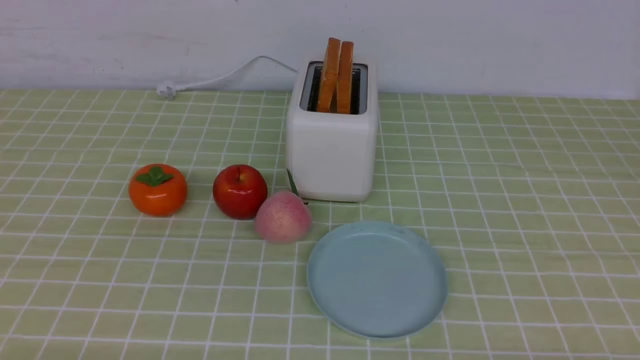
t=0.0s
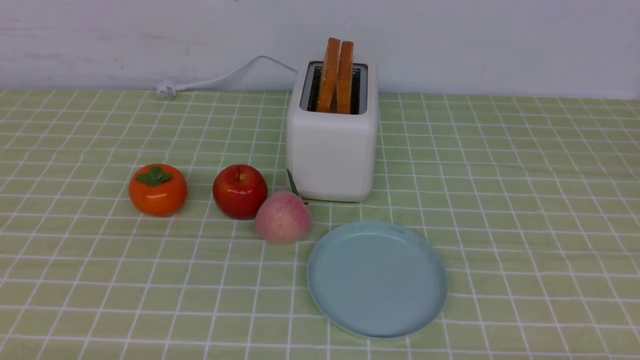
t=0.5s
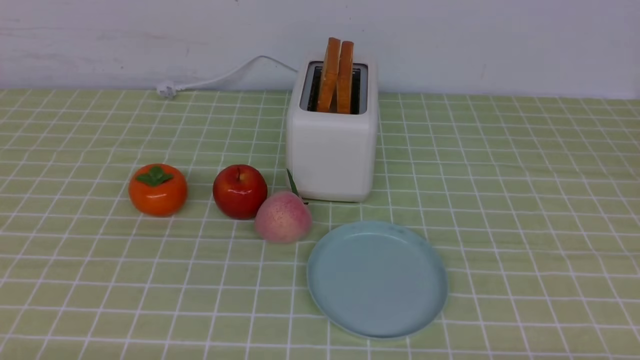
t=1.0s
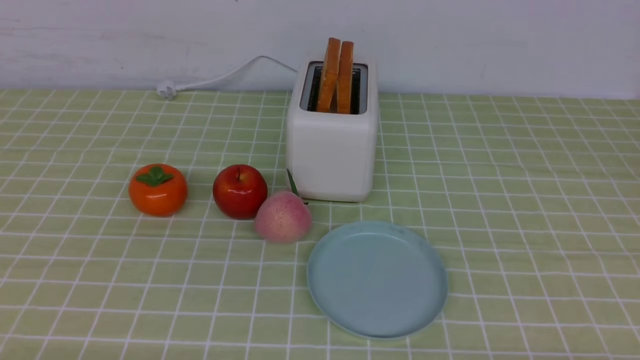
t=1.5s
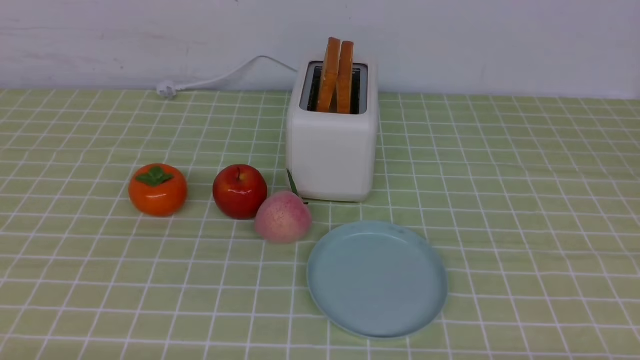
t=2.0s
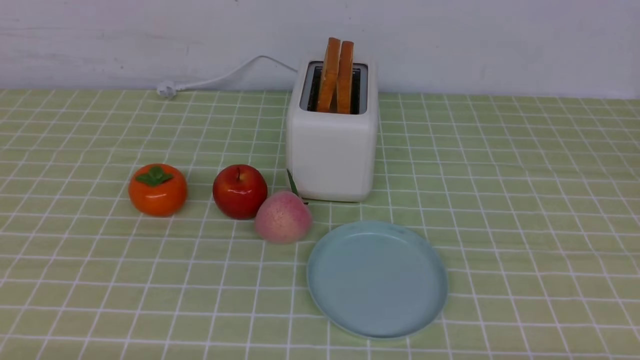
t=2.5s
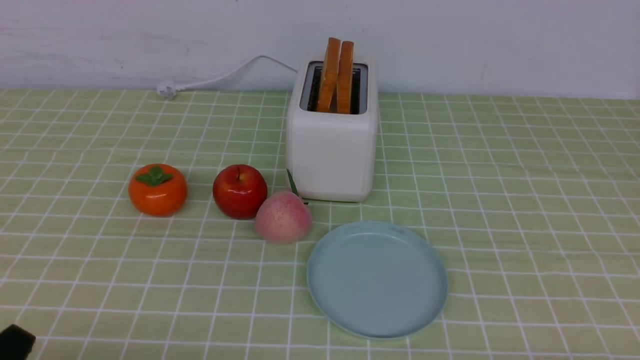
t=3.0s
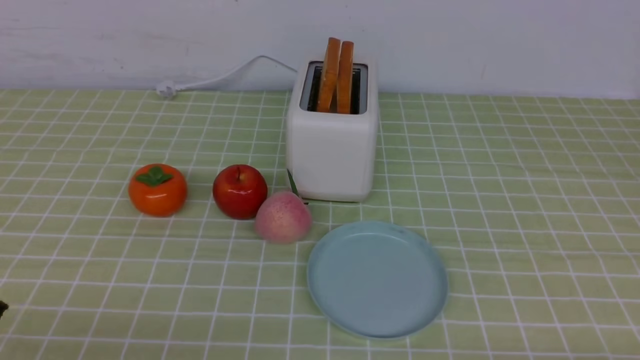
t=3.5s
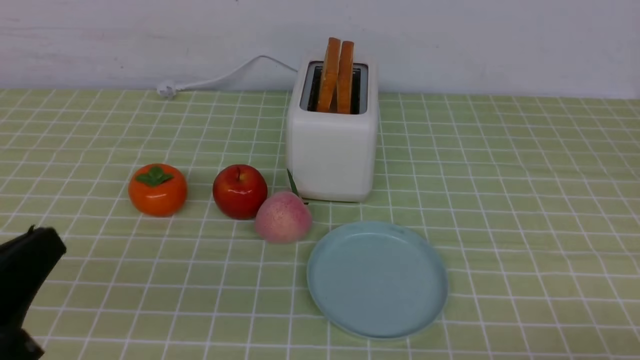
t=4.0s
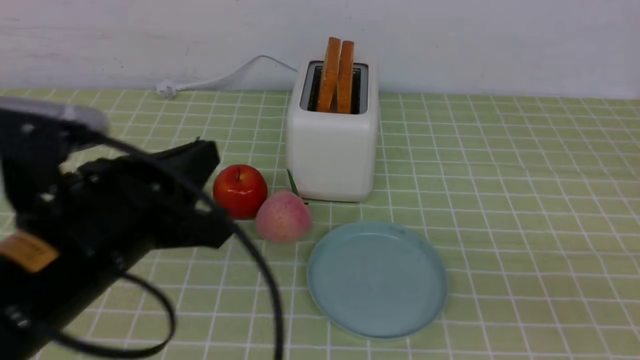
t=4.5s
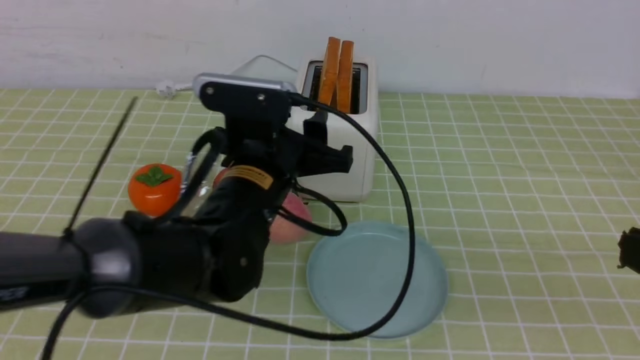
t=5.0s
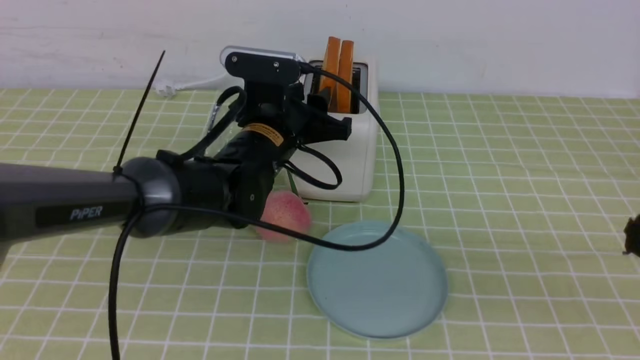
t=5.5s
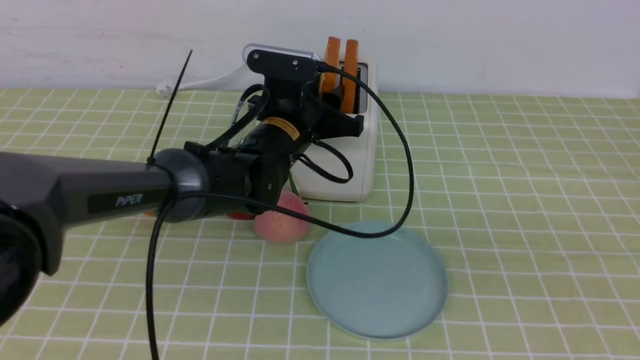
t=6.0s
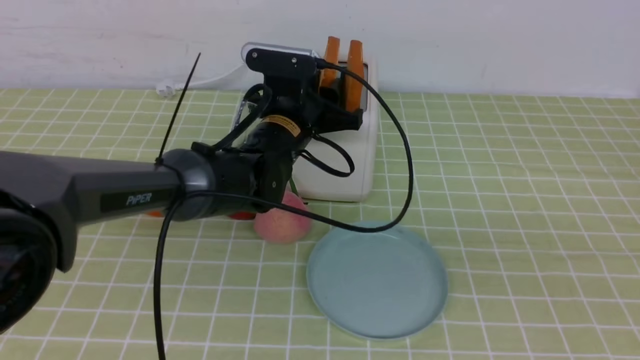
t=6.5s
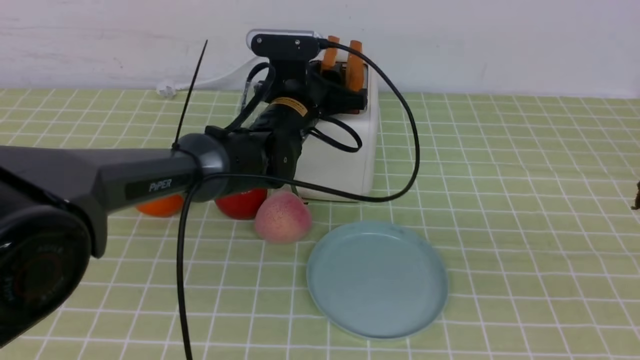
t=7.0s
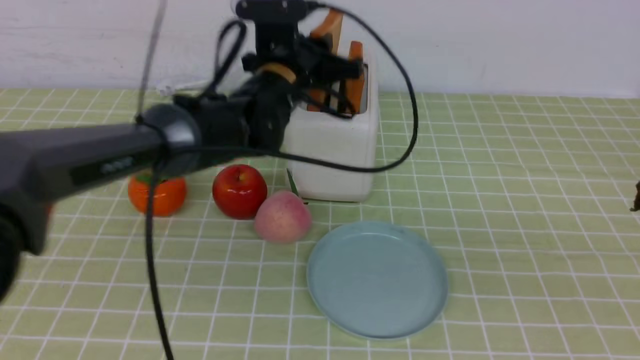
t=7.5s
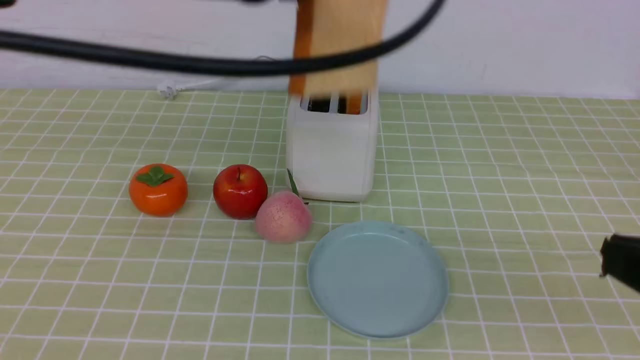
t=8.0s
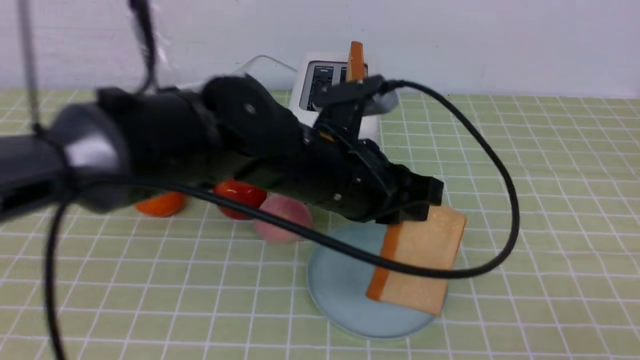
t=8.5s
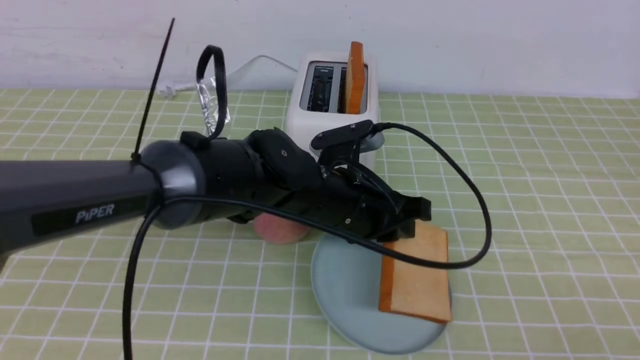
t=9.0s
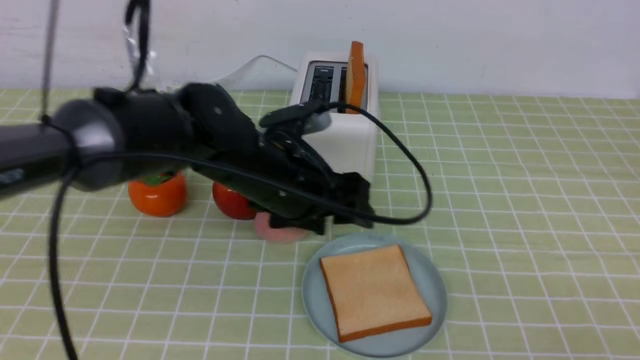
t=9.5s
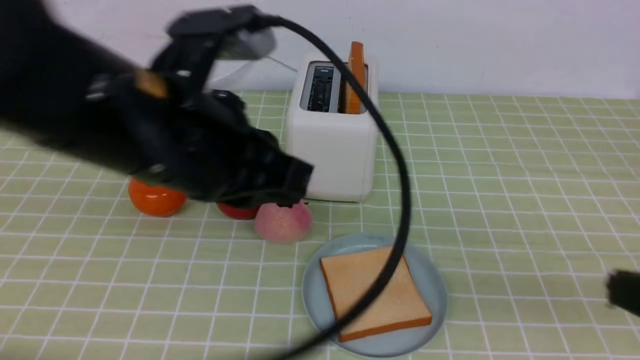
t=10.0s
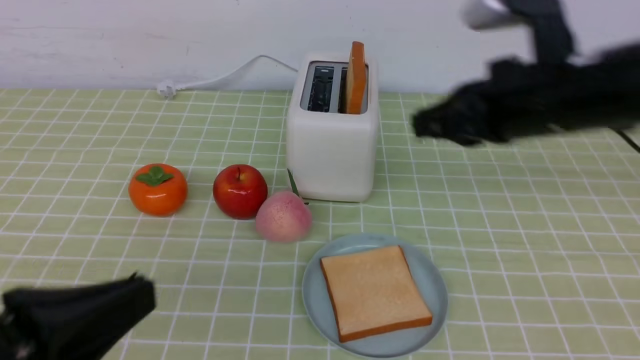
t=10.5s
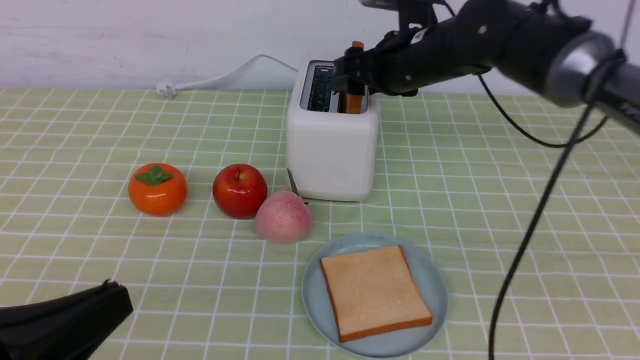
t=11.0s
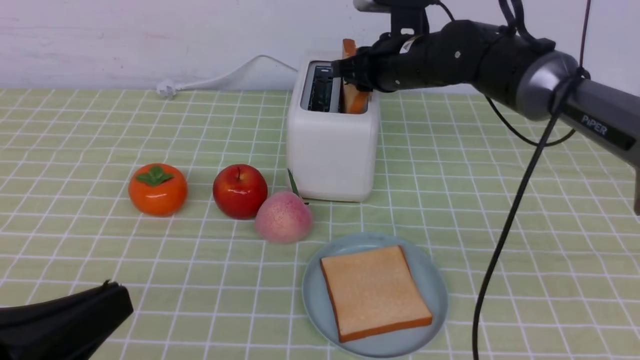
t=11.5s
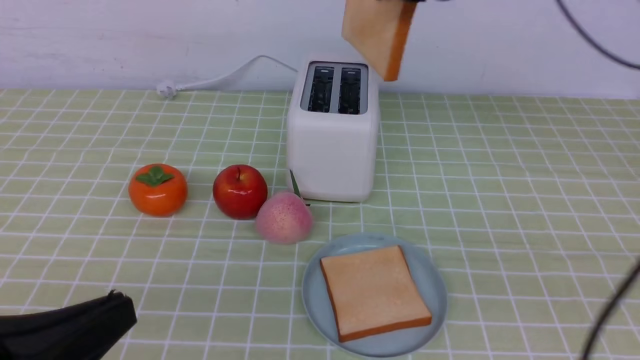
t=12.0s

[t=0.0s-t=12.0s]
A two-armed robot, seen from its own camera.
Task of the whole recording: take toasted bread from bread machine on green coffee tablecloth place on plate.
Step, t=0.0s to t=7.5s: use the left arm to take out a slice of bread.
Step, t=8.0s to t=10.0s: use the left arm to put a slice of bread into the empty plate.
t=2.0s to t=4.0s: The left gripper shifts about 10 cm upward, and closes.
t=4.0s to t=6.0s: The left gripper heads forward and to the right, covering about 40 cm, and opens, while the right gripper heads upward, covering some 15 cm.
t=6.0s to t=8.0s: The left gripper heads upward and backward, covering some 20 cm, and closes up.
t=8.0s to t=10.0s: The left gripper heads backward and downward, covering some 10 cm, and opens, then closes once more.
t=10.0s to t=12.0s: The right gripper heads forward and to the left, covering some 35 cm, and opens, then closes once more, while the left gripper shifts approximately 20 cm backward, to the left and downward.

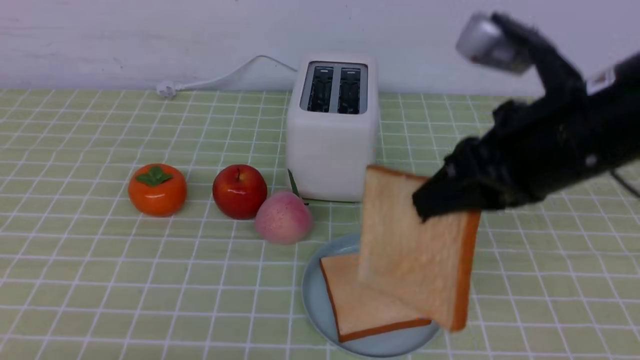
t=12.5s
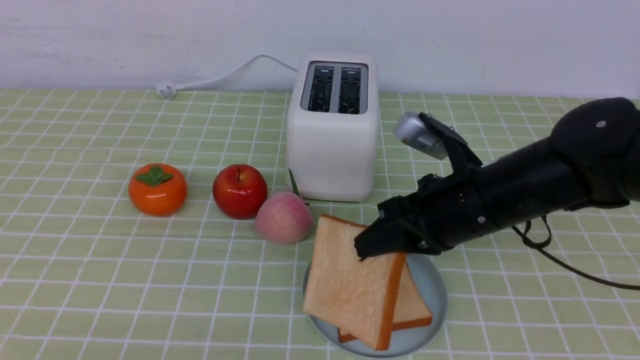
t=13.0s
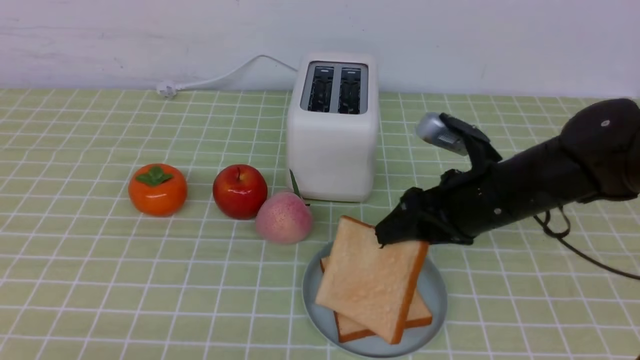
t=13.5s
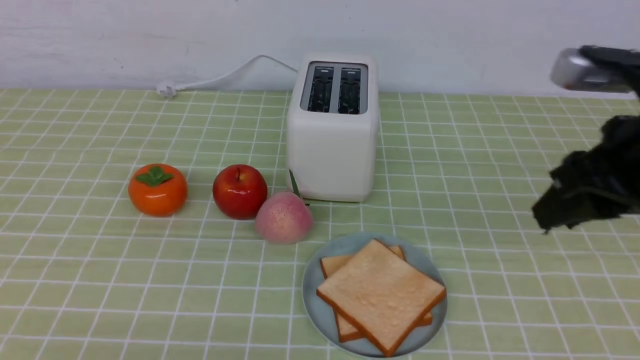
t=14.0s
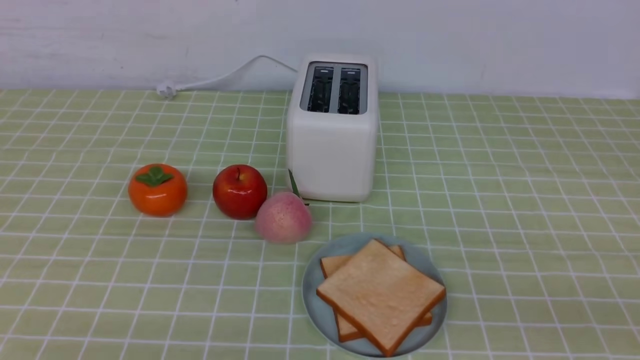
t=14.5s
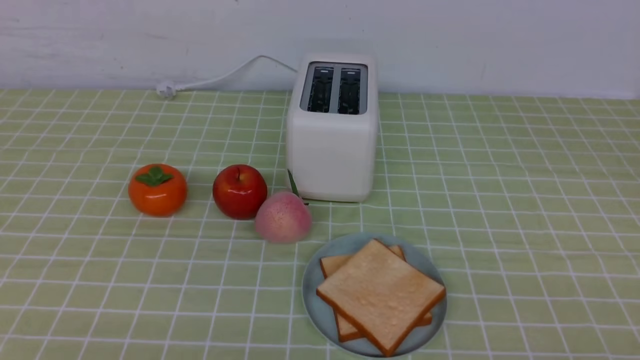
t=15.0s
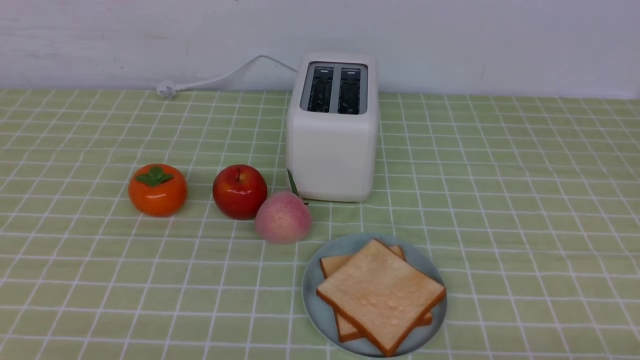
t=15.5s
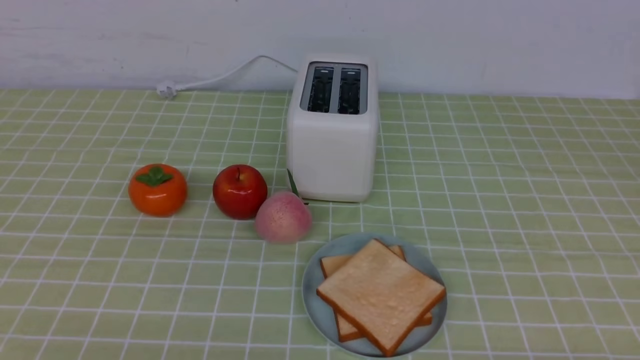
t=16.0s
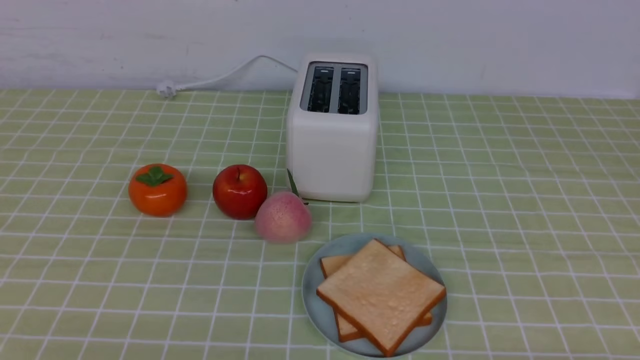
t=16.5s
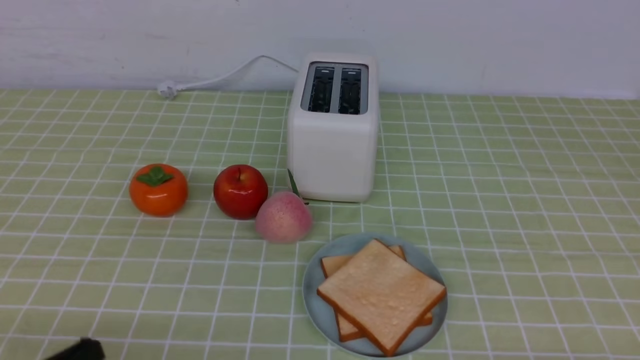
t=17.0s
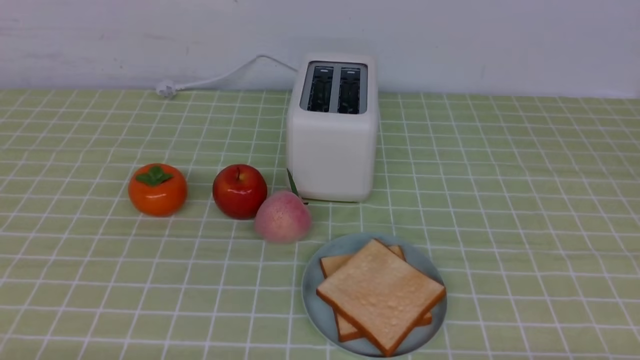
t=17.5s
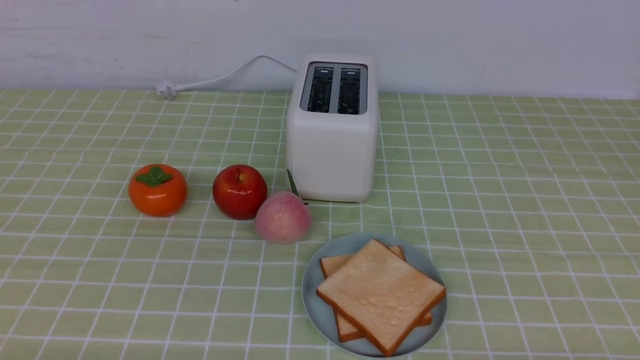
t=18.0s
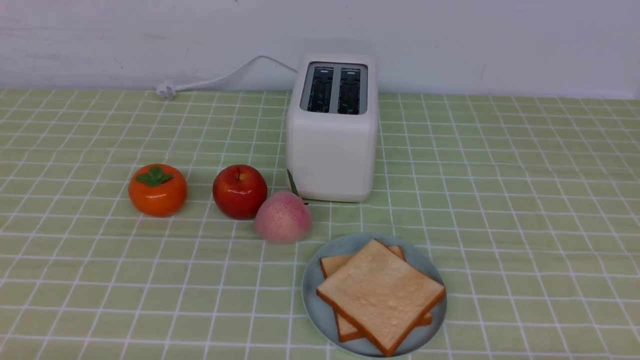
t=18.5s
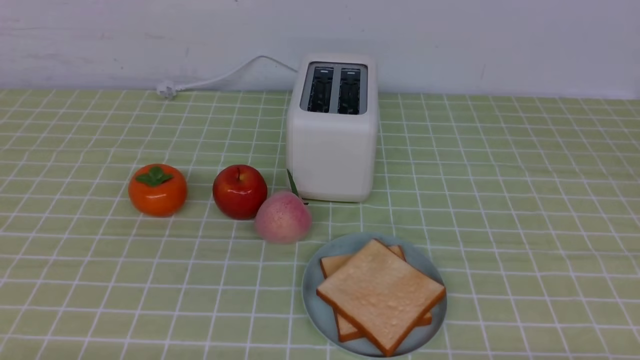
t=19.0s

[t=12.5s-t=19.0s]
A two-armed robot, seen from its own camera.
Task of the whole recording: take toasted bread from bread machine on green coffee tablecloth place on plate.
Step, t=12.5s to t=13.5s: use the right arm to put a slice of bread into the plate.
t=12.5s to t=14.5s: The right gripper moves backward and to the right, some 20 cm, and opens, then closes once more; the left gripper is displaced downward by some 5 cm.

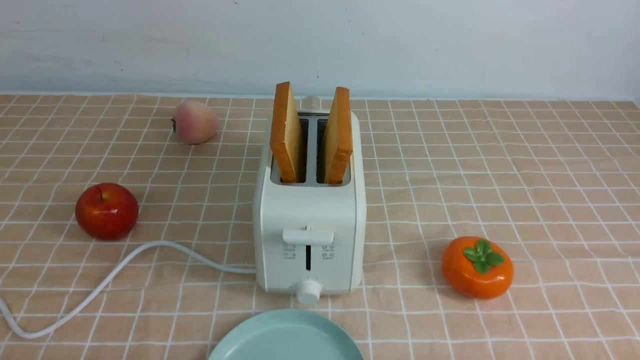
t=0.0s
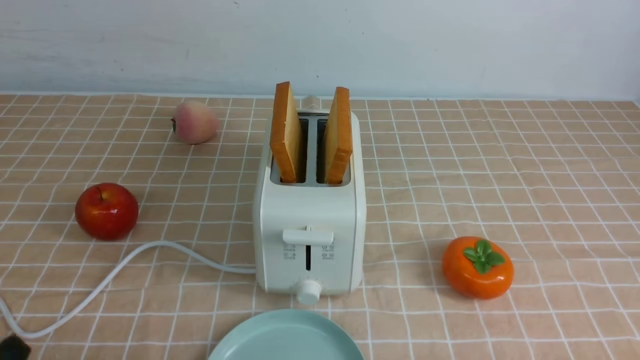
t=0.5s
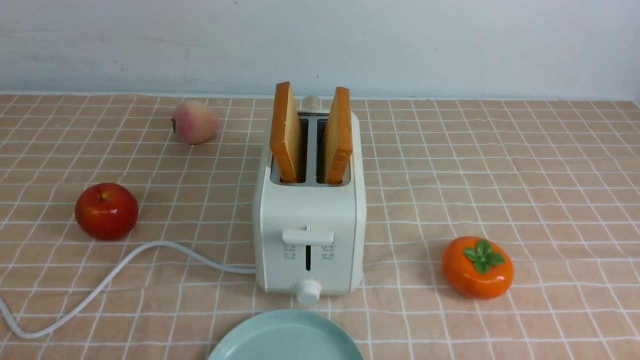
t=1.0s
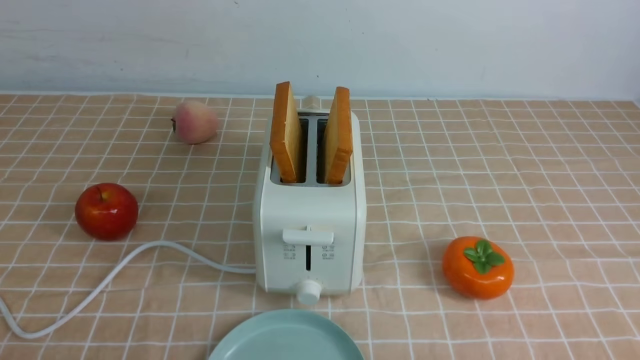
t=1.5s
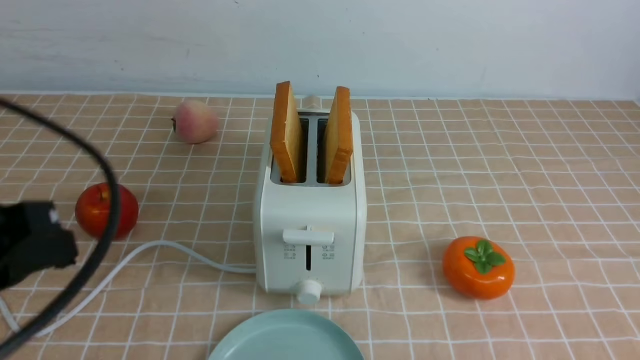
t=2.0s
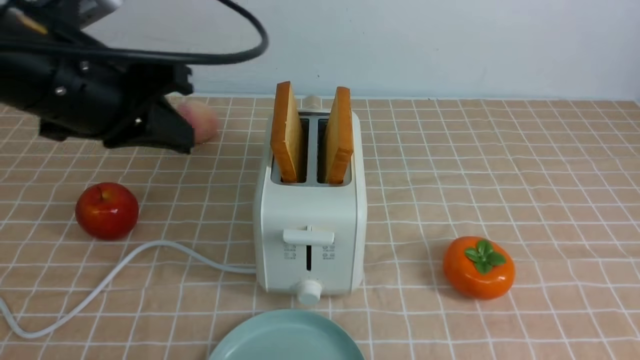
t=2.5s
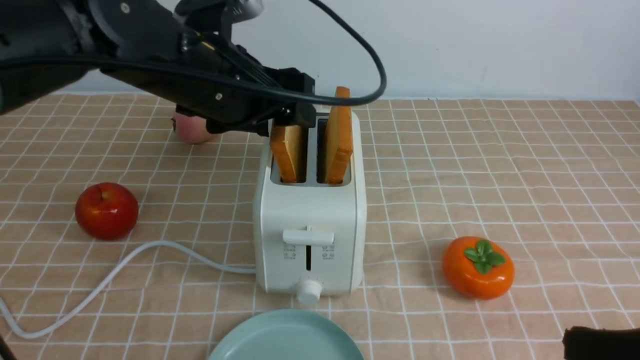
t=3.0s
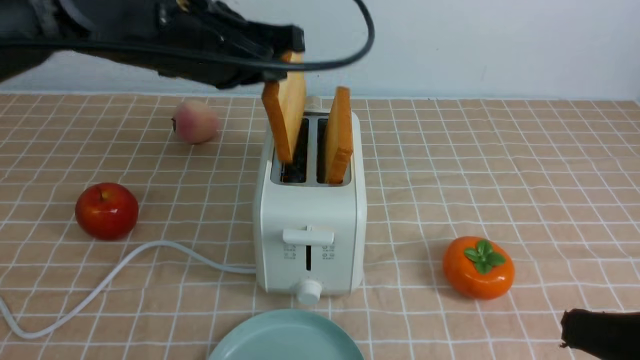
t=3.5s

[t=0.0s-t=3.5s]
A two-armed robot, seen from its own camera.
Task of the whole recording: take toasted bread from bread machine on light coffee tablecloth place on plate.
Step, t=0.0s to t=3.5s: use the left arm to take out a slice of bread.
t=2.0s to t=3.5s: The left gripper is displaced forward and to the right by some 25 cm, and opens, while the right gripper heads to the left and forward, covering about 10 cm, and closes.
